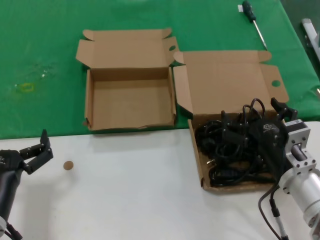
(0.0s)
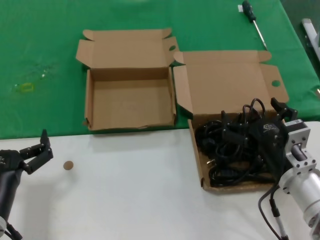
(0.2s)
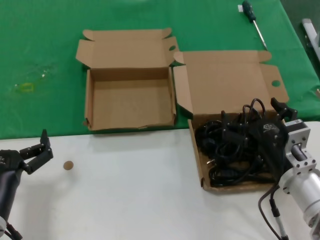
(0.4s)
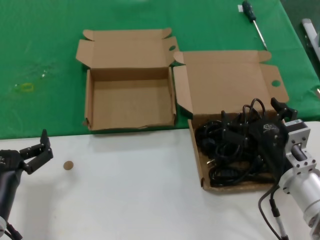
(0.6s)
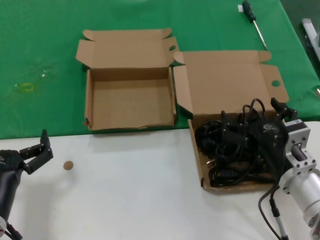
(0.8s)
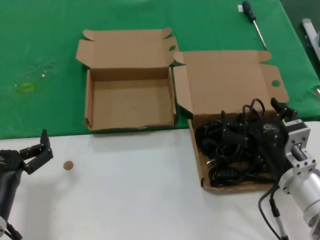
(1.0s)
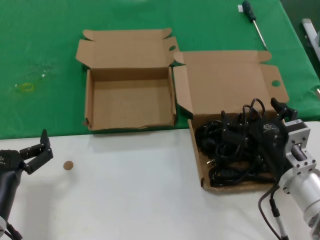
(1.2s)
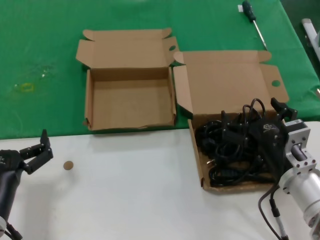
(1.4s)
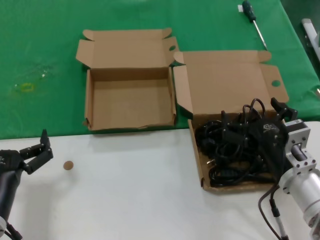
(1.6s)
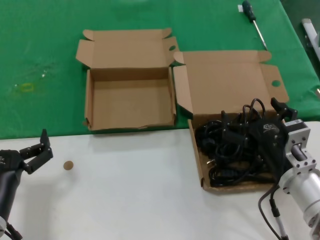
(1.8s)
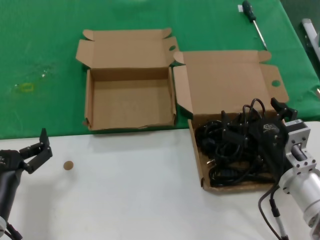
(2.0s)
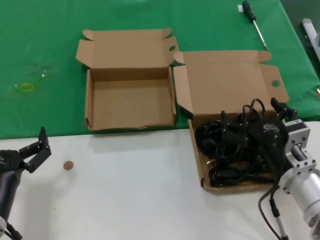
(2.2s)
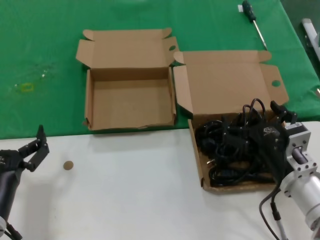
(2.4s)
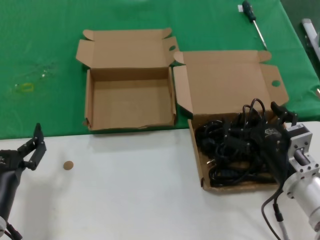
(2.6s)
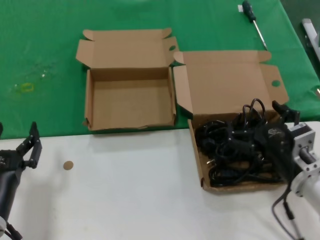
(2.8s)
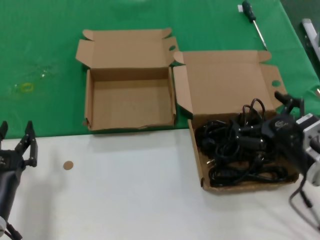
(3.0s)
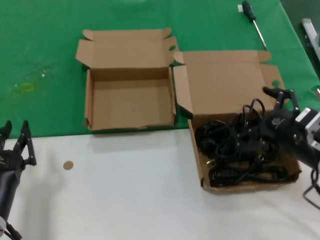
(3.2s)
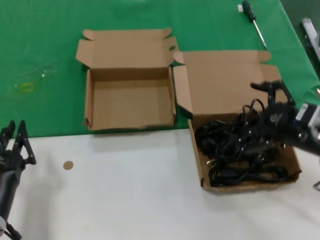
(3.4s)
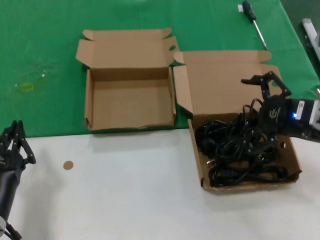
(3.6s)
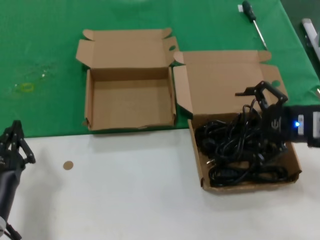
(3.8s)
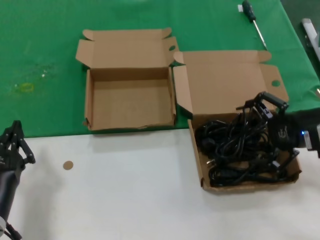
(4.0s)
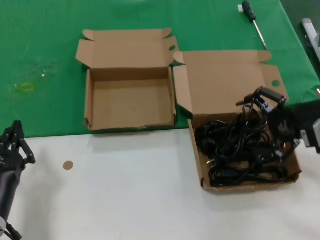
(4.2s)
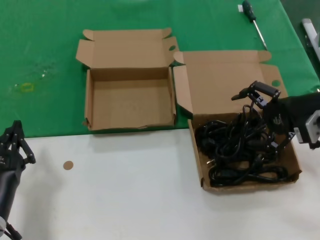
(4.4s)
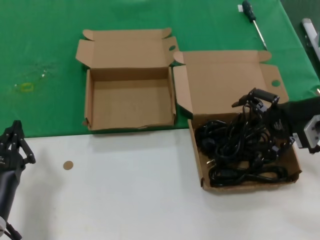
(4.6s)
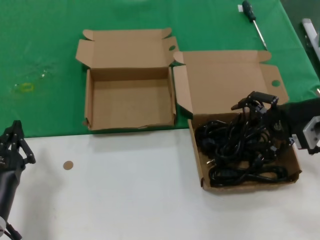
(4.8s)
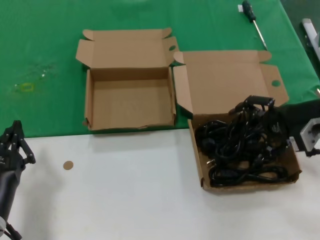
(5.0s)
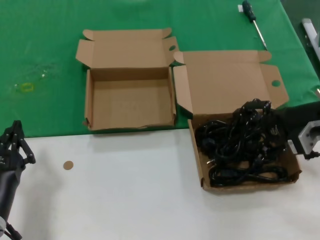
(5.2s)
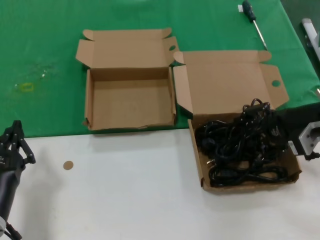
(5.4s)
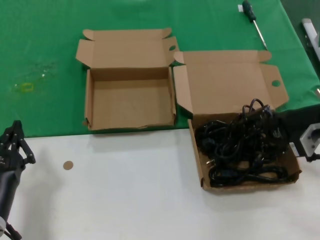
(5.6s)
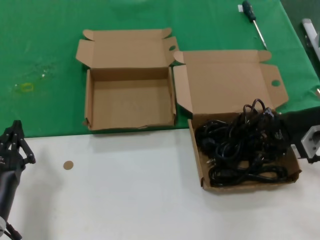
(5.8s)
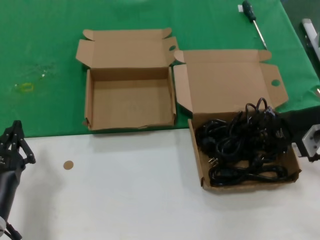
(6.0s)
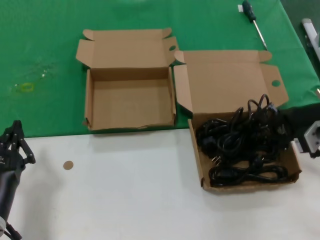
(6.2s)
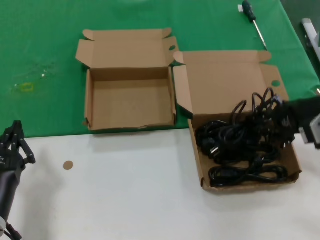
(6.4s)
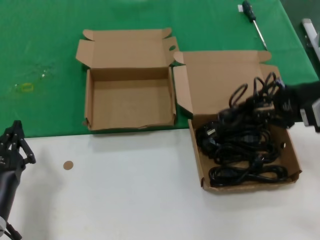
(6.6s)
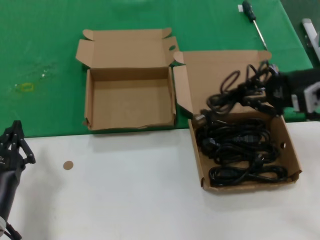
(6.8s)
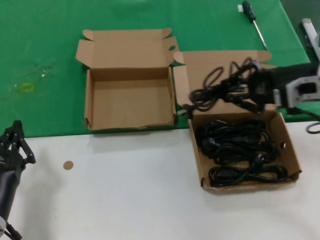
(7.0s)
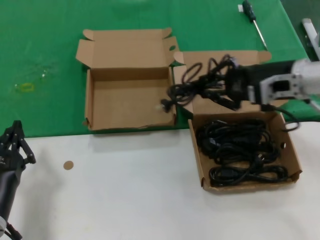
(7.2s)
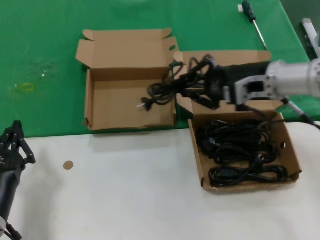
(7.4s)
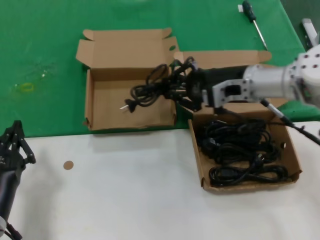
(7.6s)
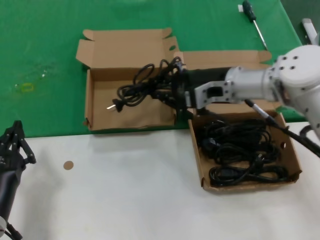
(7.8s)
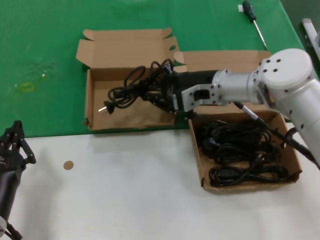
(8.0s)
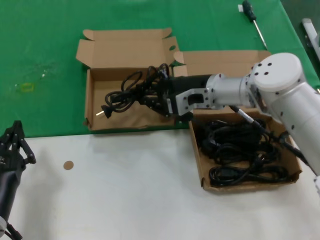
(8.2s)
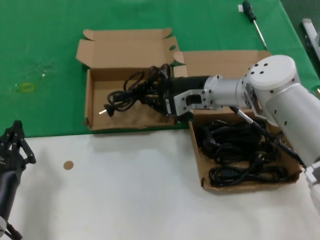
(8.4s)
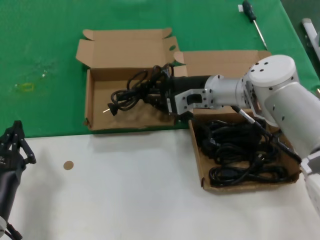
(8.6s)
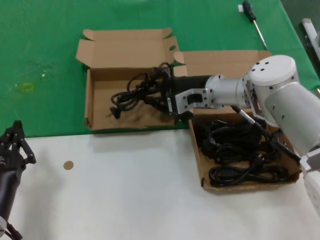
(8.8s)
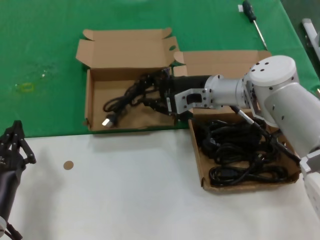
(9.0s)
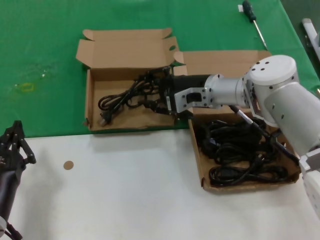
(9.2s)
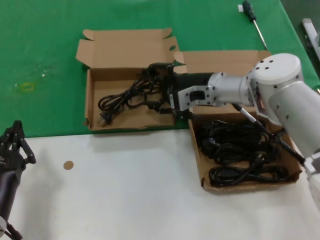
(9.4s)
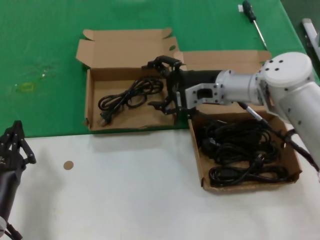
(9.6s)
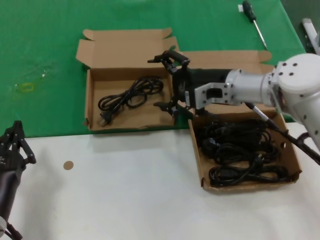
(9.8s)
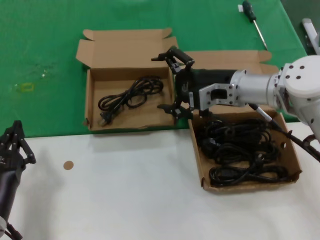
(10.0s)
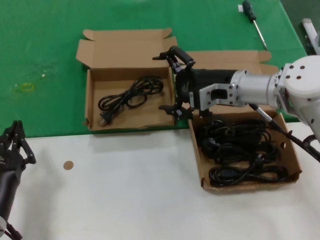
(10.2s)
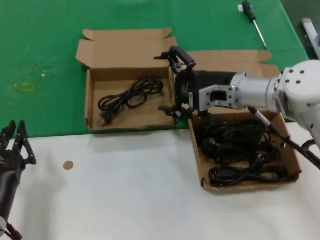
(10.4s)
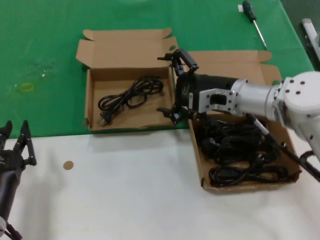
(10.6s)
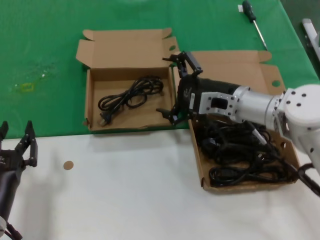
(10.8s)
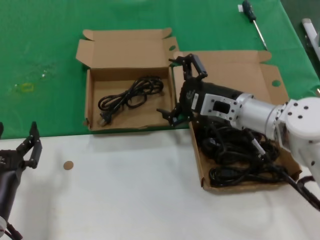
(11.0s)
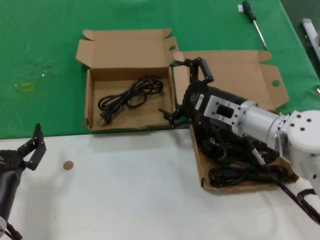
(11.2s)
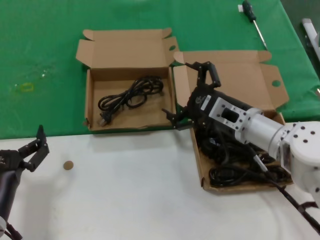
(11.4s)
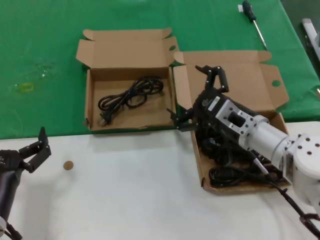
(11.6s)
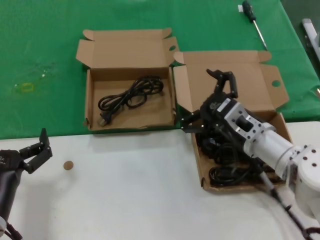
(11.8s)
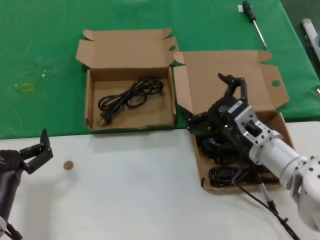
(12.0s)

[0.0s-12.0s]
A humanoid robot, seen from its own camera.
Task of the whole recording: take the parts from the box containing them and put them into an empty box.
Step, 0.0s to 6.0s: Grasp the data cable.
Step, 6.2s to 9.2s: Place the data cable in the another box.
0.0s to 1.6s: The two hands keep their place.
1.6s to 3.0s: The right hand goes some 5 cm to the right.
3.0s to 4.4s: The right hand goes approximately 20 cm upward, forward and to the right.
4.4s to 6.0s: The hands stay close to where they were, moving slightly.
6.0s to 7.6s: The right hand moves to the left and forward, approximately 15 cm.
7.6s to 9.0s: The right hand travels to the left by roughly 5 cm.
9.0s to 10.4s: The right hand moves some 5 cm.
10.4s to 12.0s: The right hand shifts some 15 cm backward and downward.

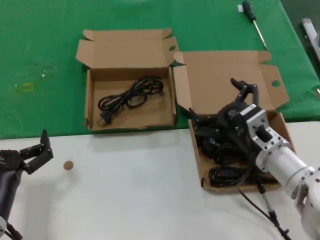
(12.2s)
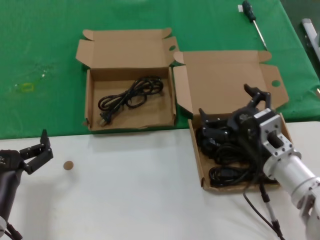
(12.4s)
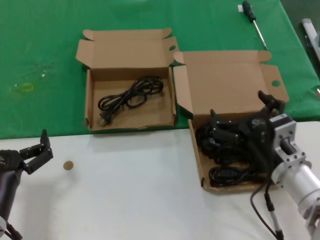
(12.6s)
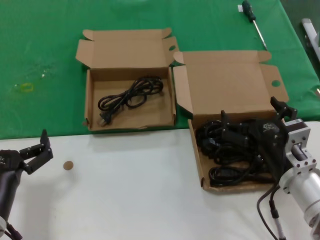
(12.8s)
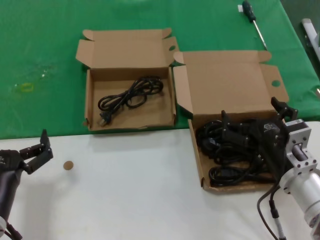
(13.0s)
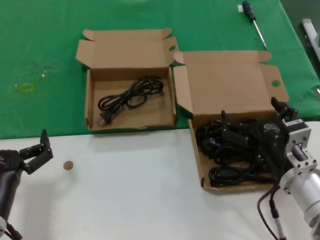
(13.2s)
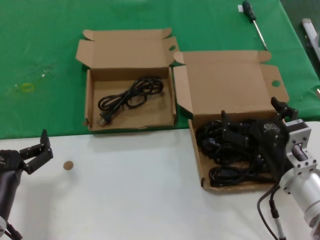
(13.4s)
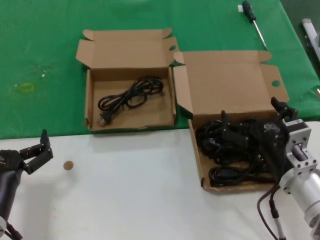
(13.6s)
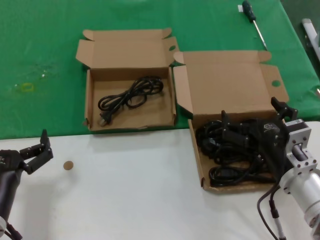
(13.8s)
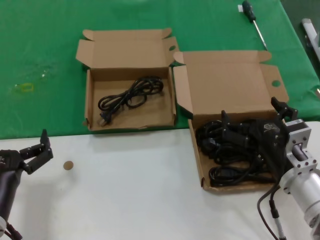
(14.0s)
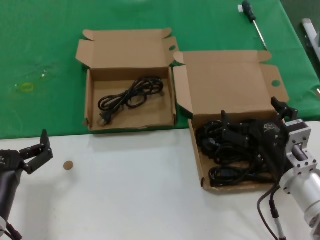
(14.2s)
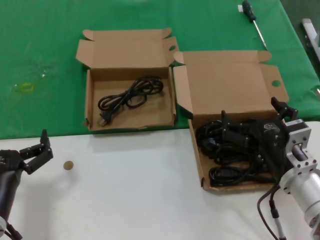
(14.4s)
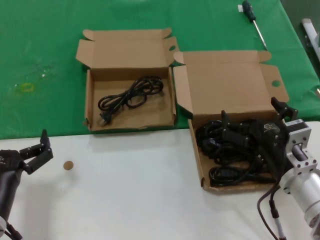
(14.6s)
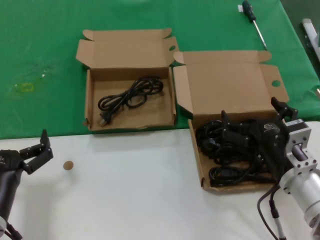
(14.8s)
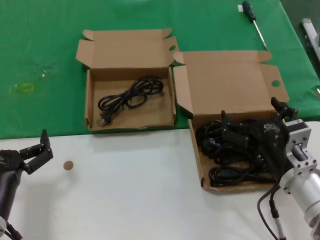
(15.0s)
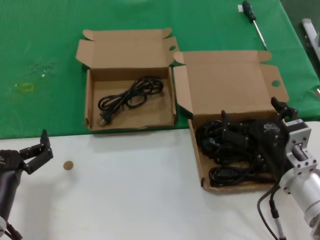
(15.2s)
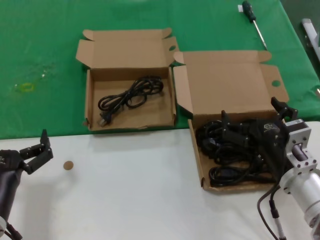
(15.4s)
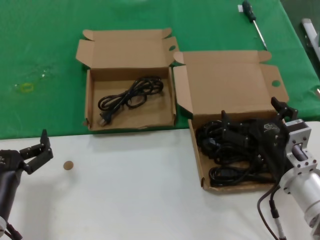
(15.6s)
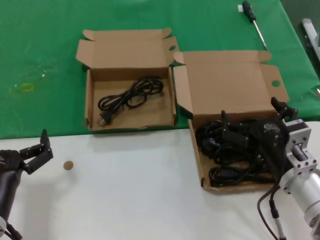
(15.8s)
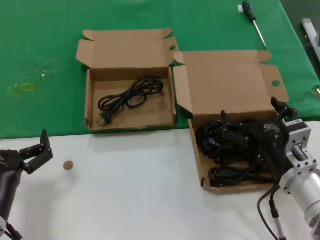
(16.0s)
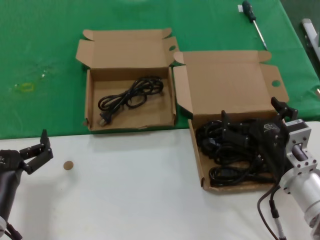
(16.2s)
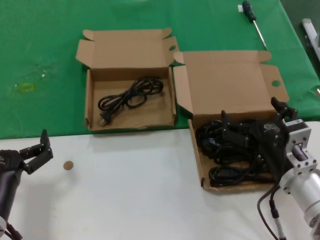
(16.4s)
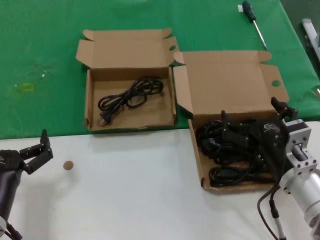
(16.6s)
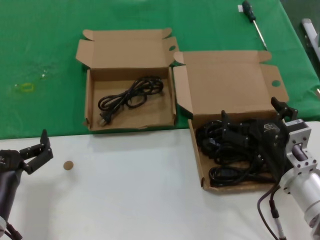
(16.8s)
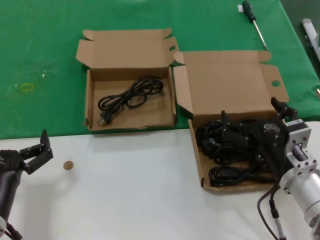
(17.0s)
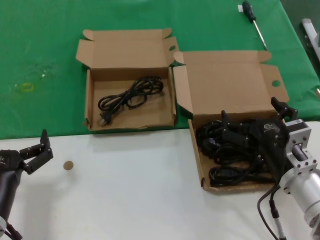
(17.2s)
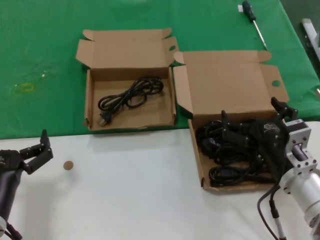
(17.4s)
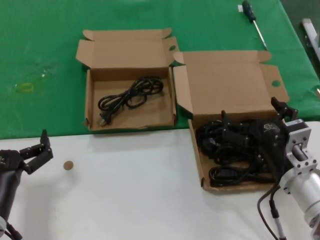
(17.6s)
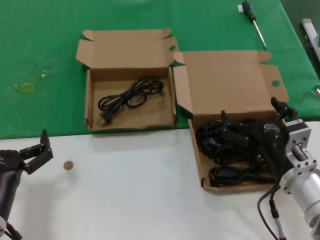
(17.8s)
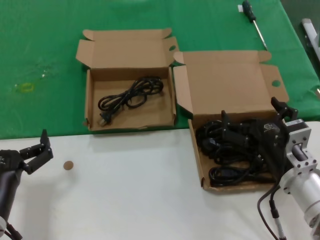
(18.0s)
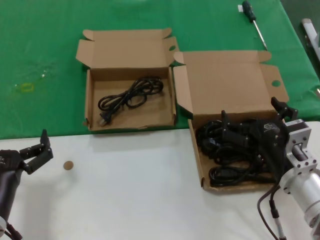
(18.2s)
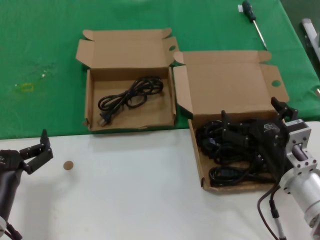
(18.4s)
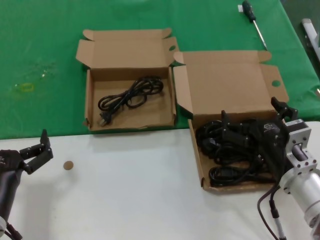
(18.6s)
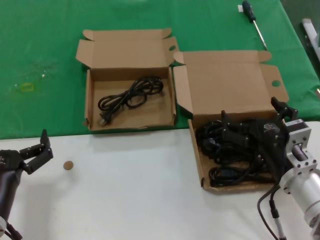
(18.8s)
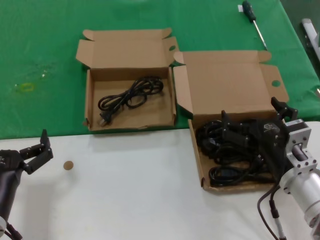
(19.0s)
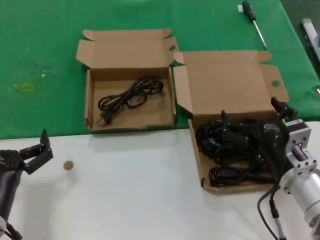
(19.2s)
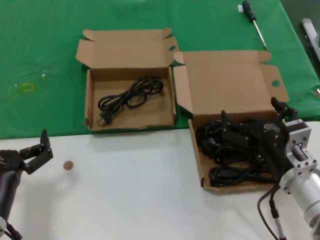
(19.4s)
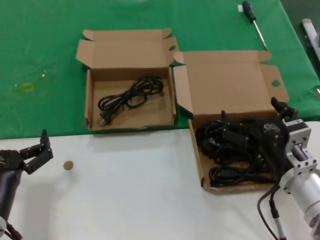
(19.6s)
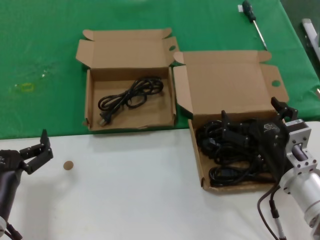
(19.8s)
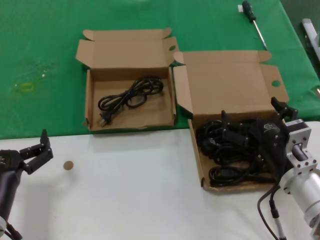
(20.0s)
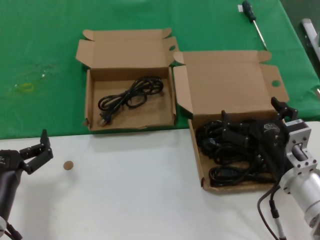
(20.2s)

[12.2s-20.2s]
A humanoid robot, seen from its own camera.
Task of the whole recording: take the parts from the box containing them and put them into an empty box.
12.2s to 13.8s: The right hand goes roughly 5 cm backward.
13.8s to 20.2s: Neither hand changes place.

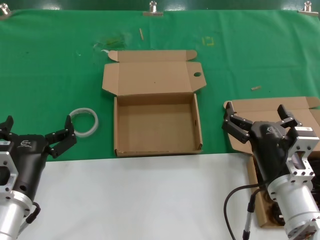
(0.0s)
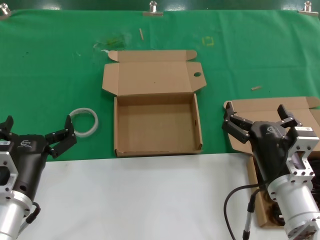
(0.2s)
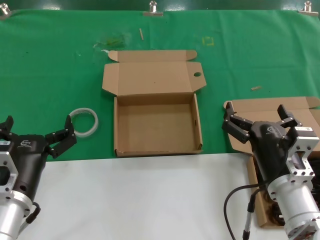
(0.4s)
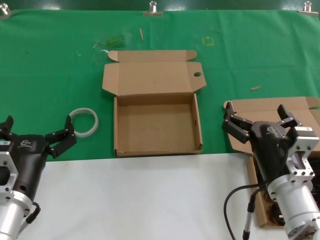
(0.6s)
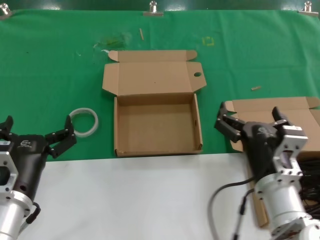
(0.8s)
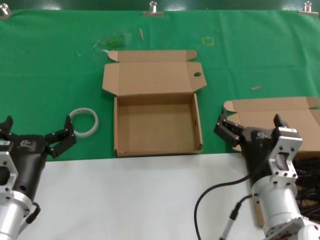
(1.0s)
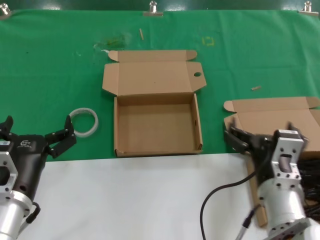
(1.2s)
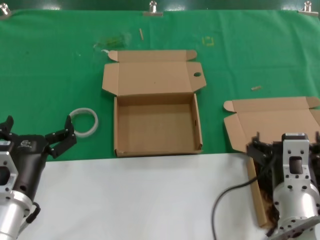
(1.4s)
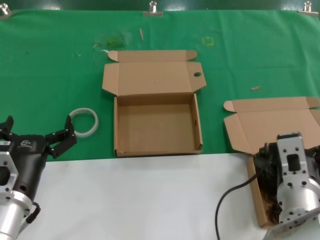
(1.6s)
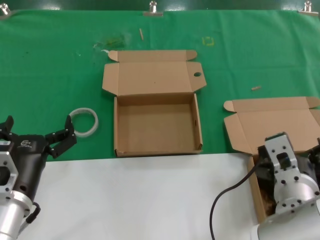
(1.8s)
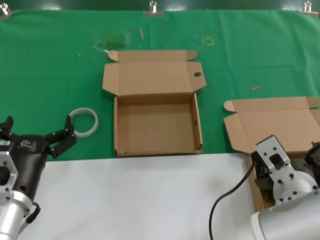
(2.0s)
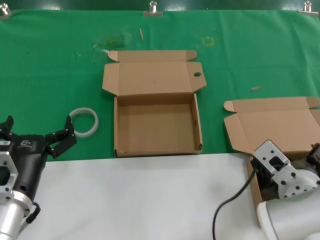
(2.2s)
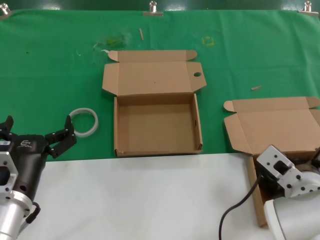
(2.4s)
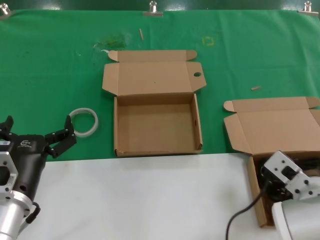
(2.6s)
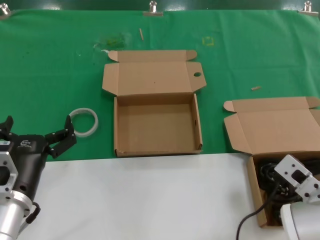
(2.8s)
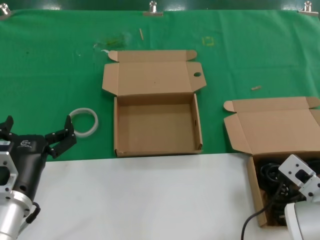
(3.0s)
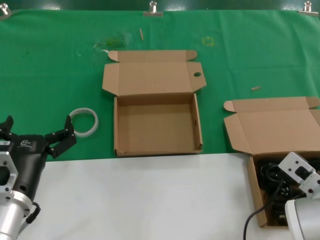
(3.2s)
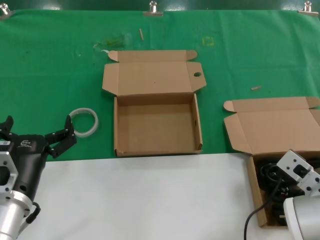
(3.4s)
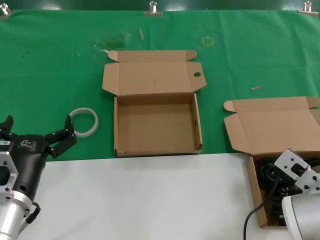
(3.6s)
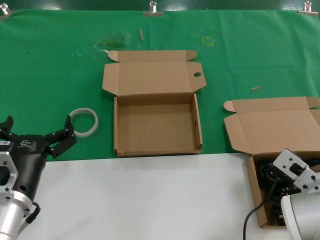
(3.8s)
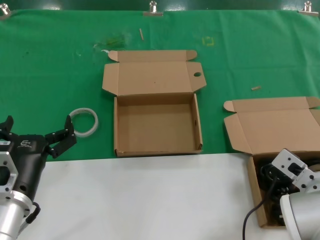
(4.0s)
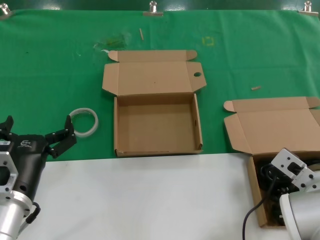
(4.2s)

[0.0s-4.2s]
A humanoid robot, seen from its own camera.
Task of the whole recording: take the parts from the box containing them and put them into an empty box.
1.4s to 2.8s: The right hand ends up approximately 5 cm from where it was.
2.8s to 4.2s: There are only small adjustments of the hands.
